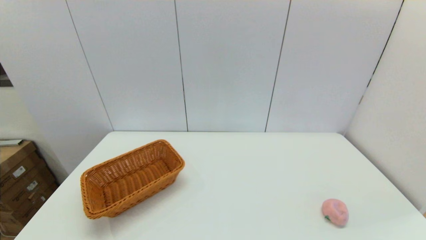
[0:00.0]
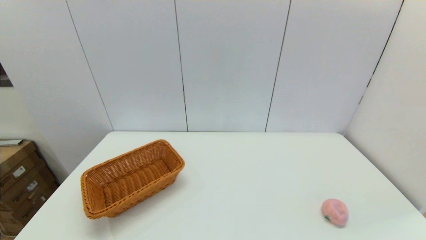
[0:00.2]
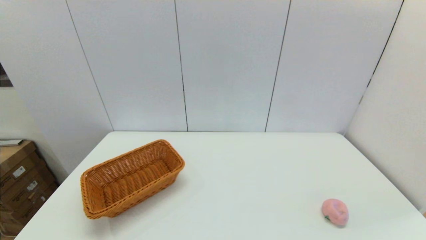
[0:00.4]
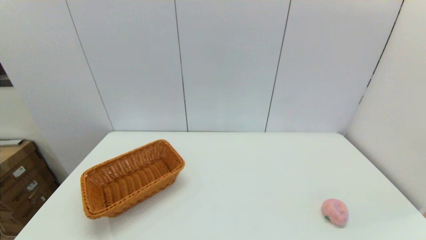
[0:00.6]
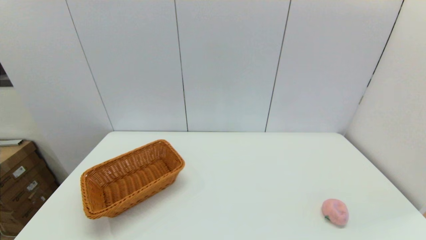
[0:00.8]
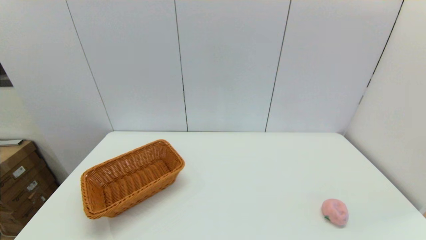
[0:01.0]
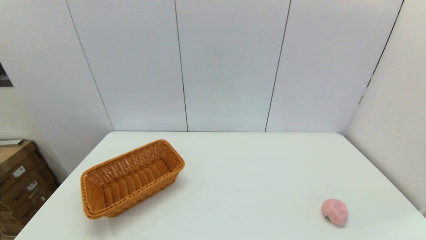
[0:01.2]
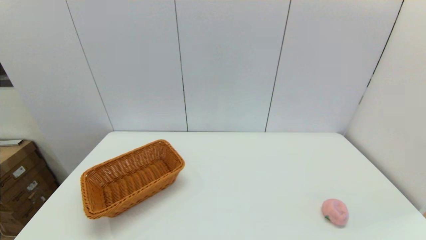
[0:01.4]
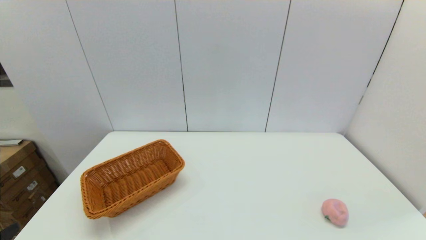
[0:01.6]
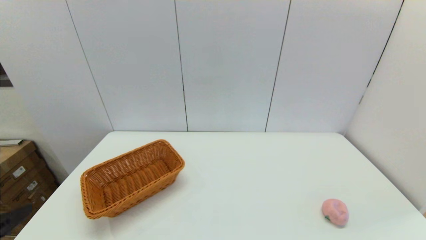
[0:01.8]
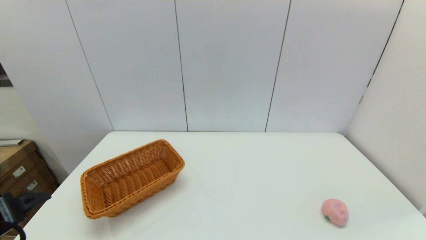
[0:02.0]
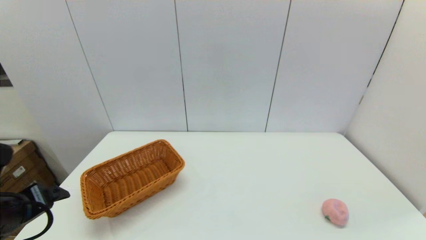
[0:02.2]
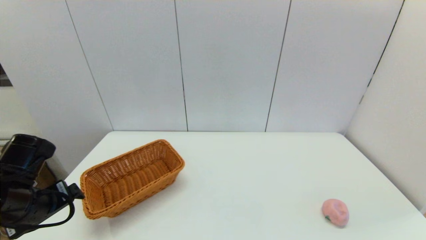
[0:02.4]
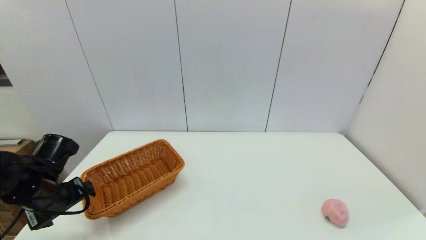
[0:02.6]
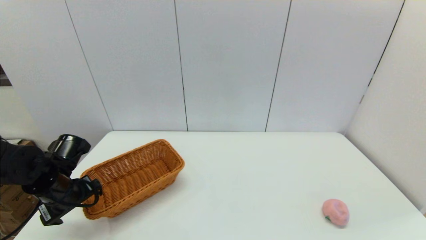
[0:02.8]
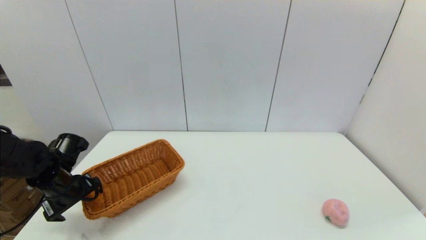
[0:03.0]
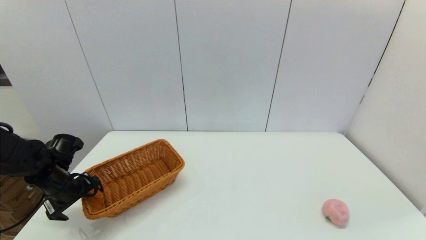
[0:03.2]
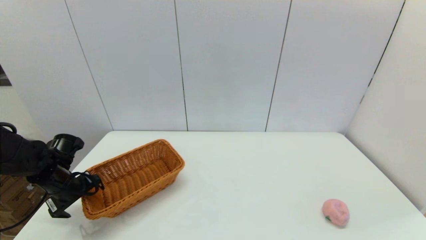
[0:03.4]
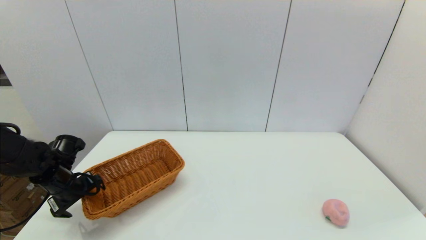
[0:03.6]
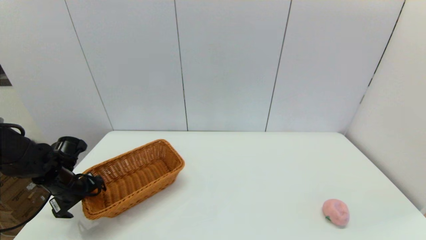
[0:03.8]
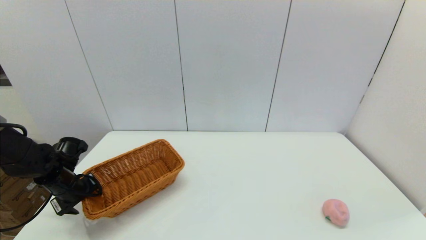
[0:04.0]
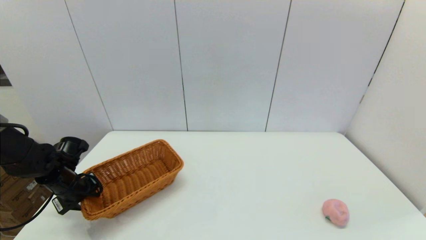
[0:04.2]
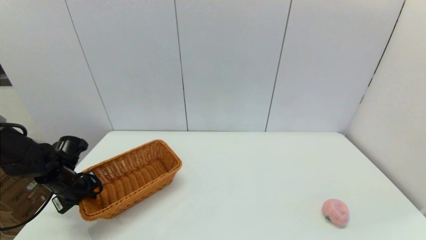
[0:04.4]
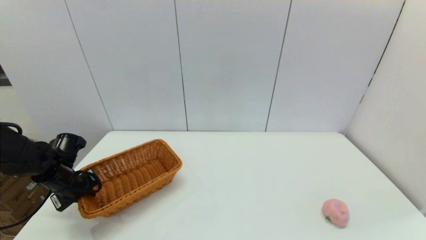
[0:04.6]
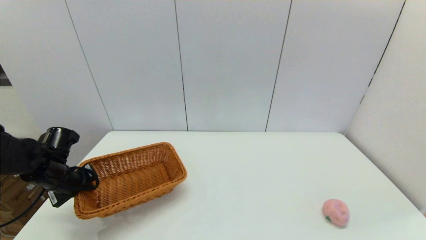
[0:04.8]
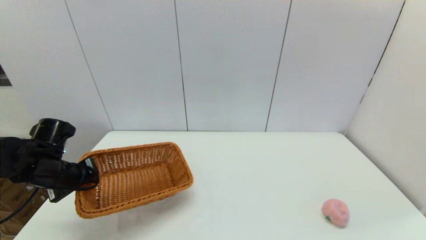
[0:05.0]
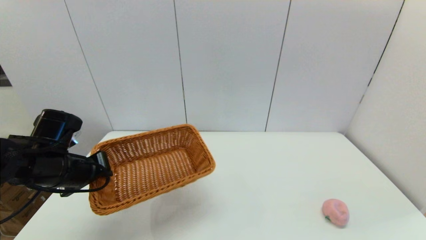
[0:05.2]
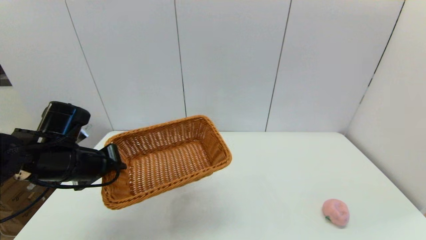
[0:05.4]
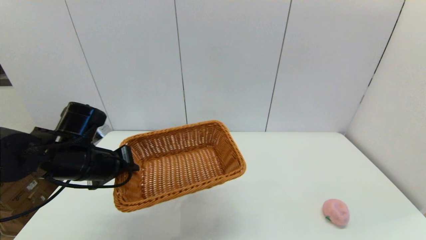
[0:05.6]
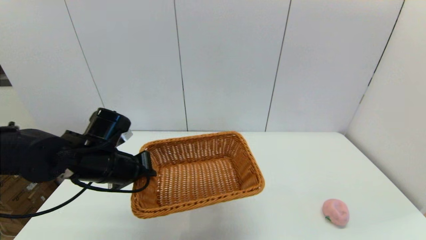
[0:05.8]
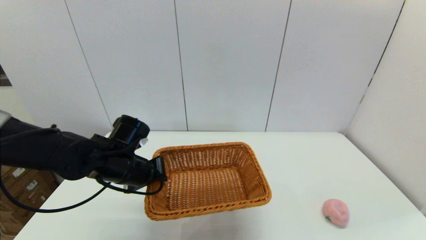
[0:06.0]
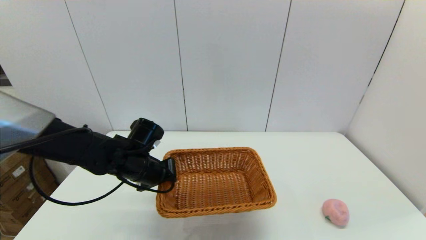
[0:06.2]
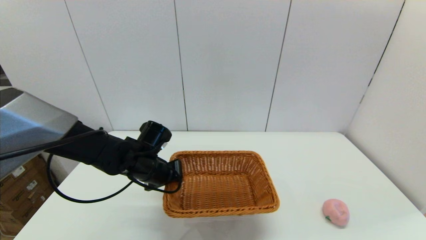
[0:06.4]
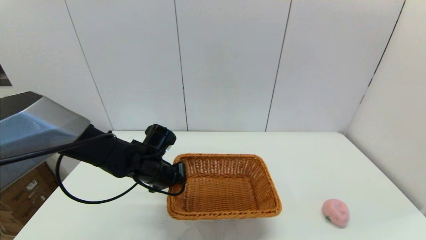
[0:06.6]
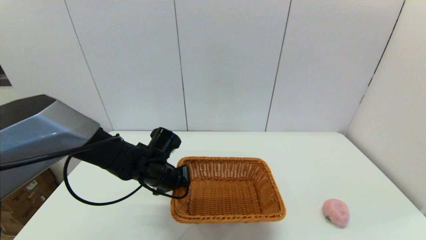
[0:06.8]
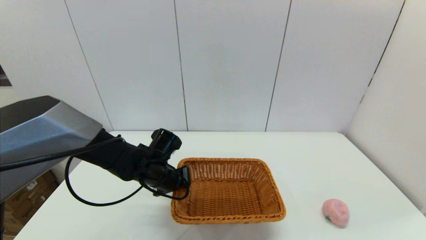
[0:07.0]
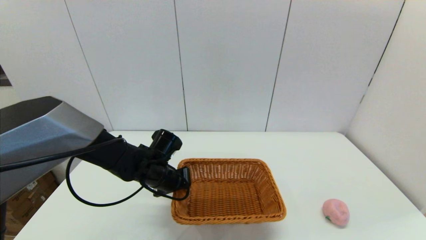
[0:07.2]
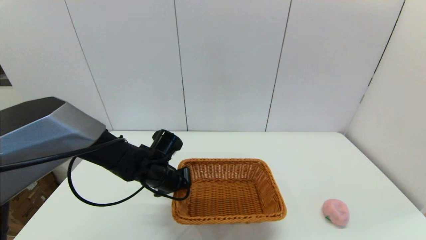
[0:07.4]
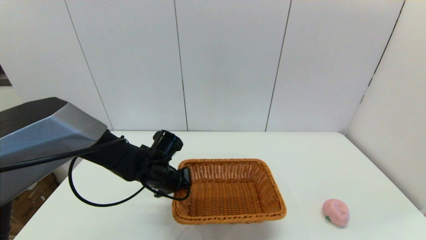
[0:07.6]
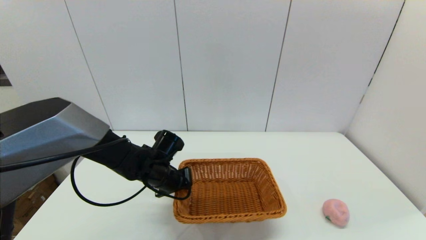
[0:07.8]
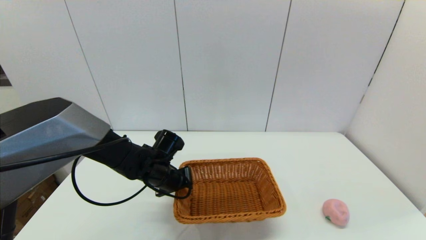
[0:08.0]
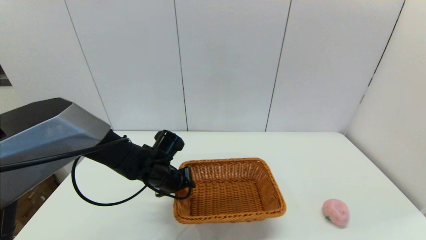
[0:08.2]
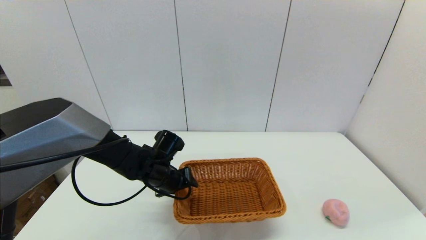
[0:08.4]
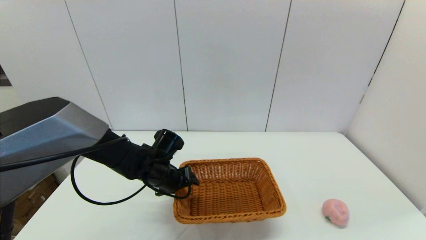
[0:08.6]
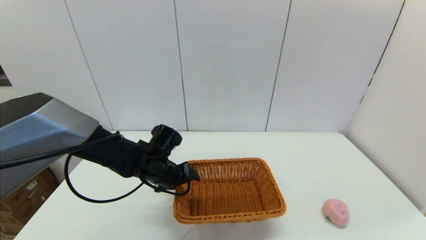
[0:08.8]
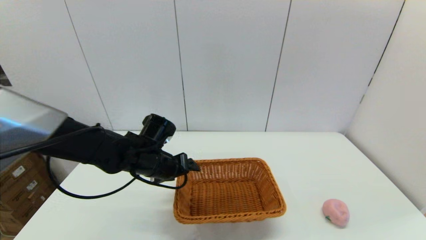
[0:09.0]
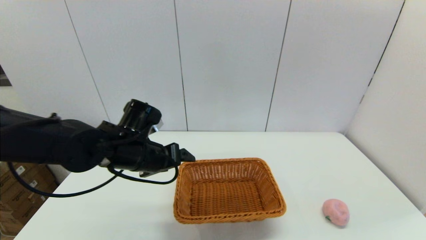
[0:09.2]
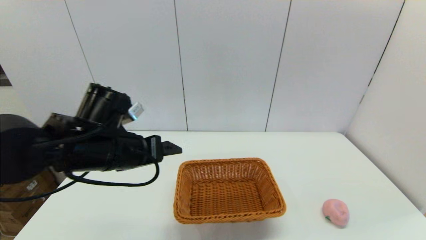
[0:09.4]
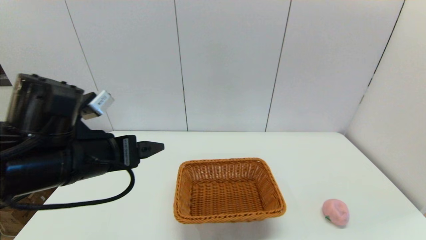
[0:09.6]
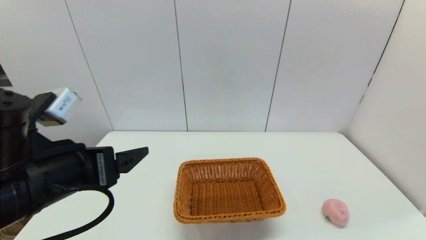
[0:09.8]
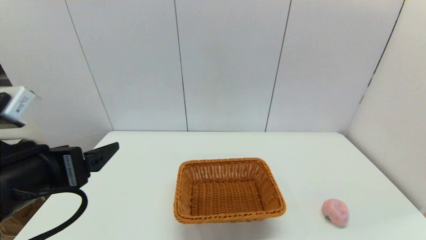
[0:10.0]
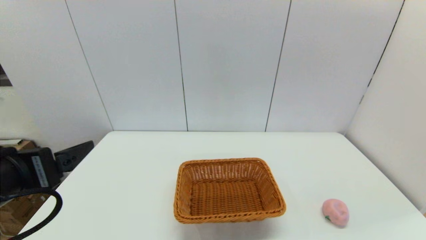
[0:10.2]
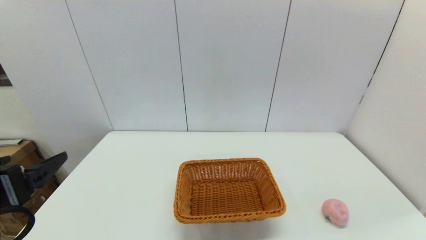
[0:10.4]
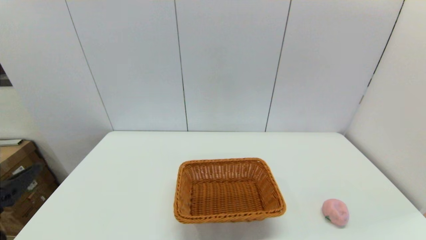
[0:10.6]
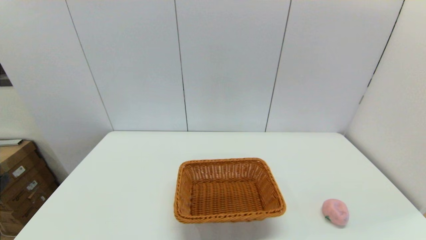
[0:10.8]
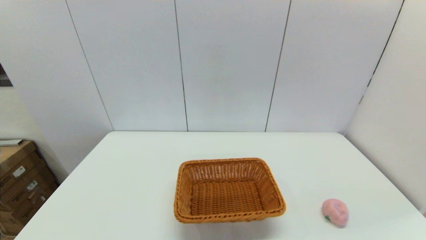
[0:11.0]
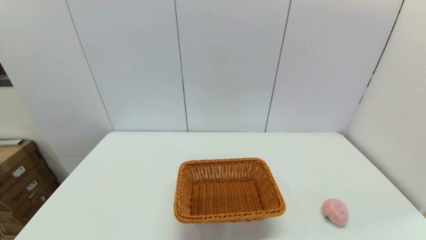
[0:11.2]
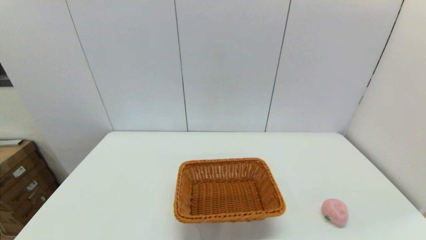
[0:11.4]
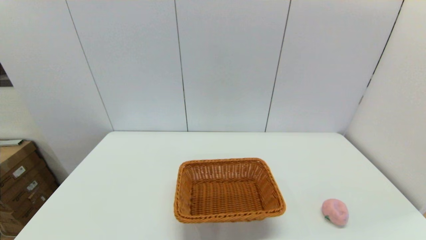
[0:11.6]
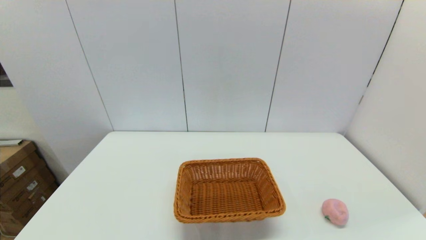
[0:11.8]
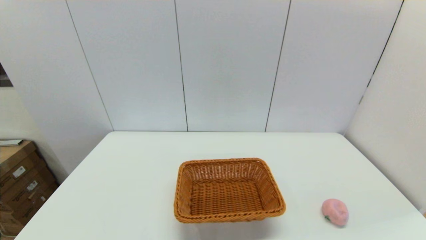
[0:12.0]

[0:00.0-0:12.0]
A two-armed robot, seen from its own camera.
Step, 0:00.0 to 0:04.4: Grasp the light basket with the left gripper.
Step, 0:04.6 to 0:08.4: Place the light basket on the middle of the table with the left gripper.
0:01.6 to 0:03.0: The left gripper travels forward by approximately 25 cm.
0:03.0 to 0:04.4: The left gripper closes its fingers.
0:04.4 to 0:06.0: The left gripper shifts roughly 20 cm to the right.
0:06.0 to 0:07.6: The left gripper moves downward, approximately 5 cm.
0:07.6 to 0:09.0: The left gripper goes approximately 5 cm upward, and opens.
0:09.0 to 0:10.4: The left gripper heads backward, to the left and upward, covering about 30 cm.
0:10.4 to 0:12.0: The left gripper is displaced backward and downward by about 15 cm.

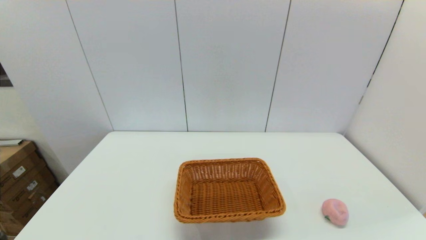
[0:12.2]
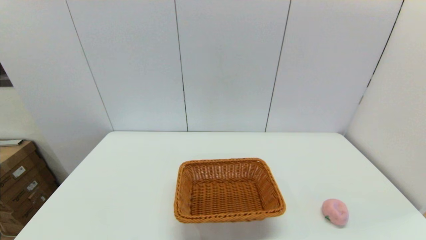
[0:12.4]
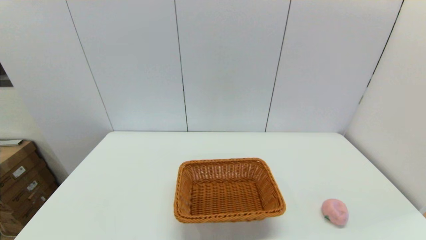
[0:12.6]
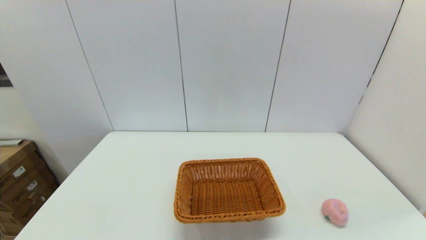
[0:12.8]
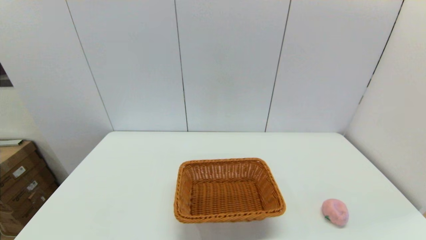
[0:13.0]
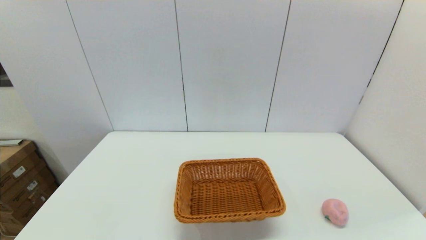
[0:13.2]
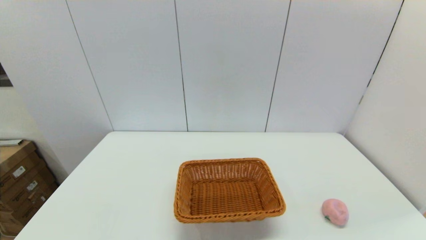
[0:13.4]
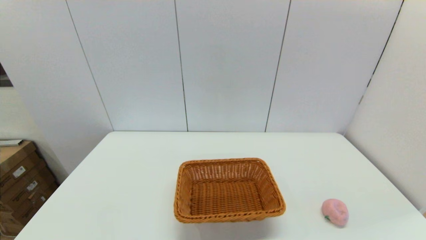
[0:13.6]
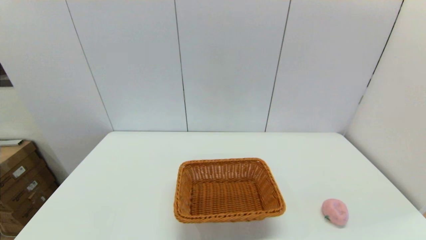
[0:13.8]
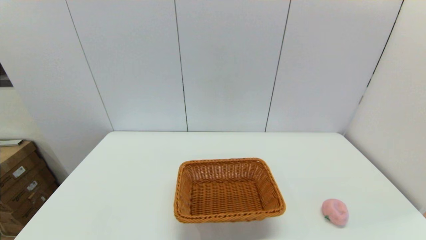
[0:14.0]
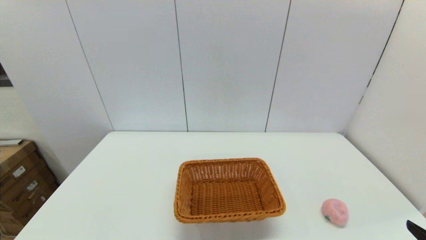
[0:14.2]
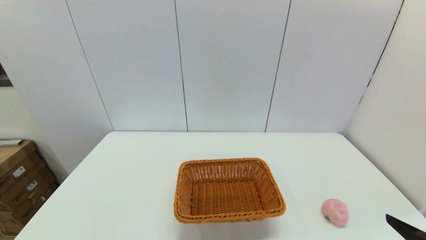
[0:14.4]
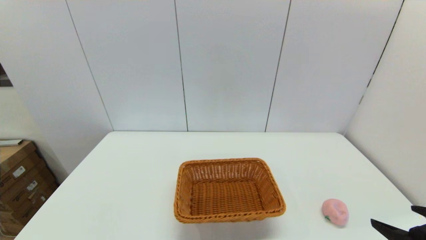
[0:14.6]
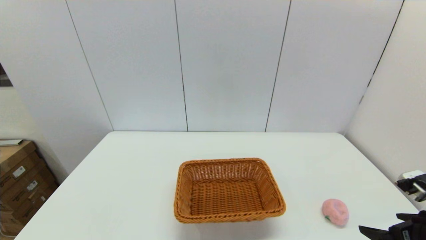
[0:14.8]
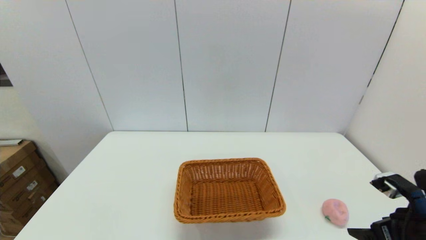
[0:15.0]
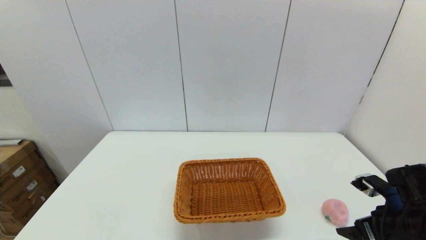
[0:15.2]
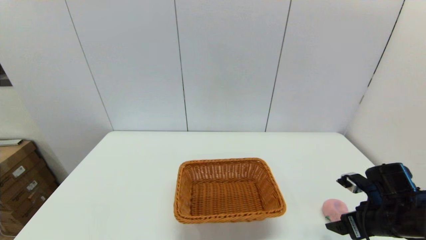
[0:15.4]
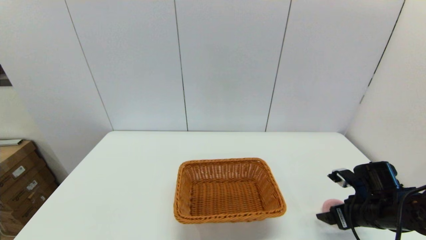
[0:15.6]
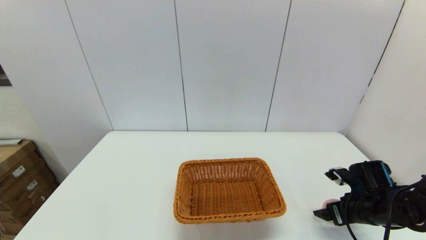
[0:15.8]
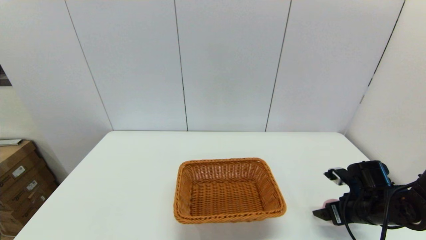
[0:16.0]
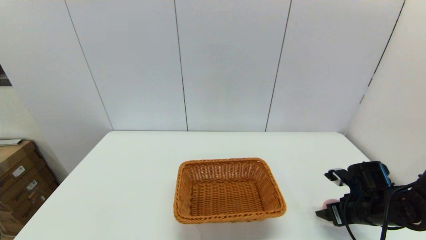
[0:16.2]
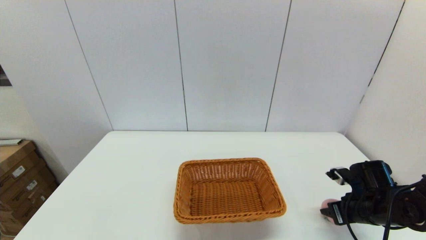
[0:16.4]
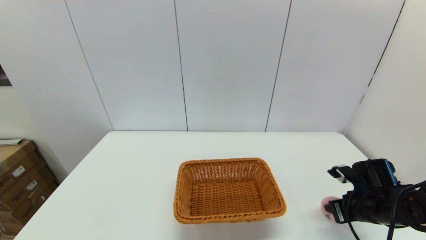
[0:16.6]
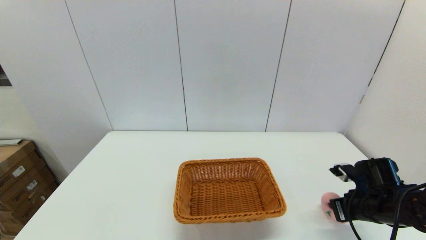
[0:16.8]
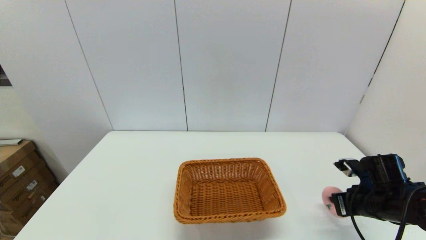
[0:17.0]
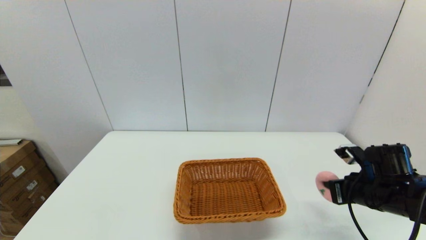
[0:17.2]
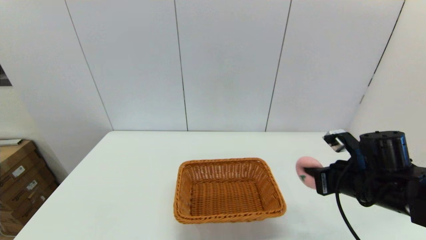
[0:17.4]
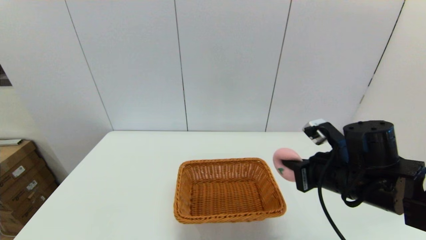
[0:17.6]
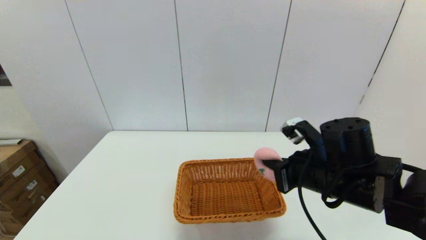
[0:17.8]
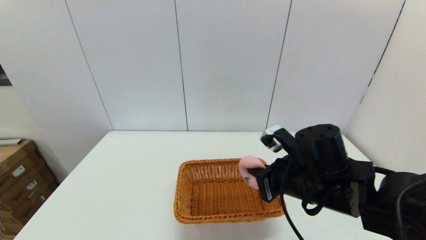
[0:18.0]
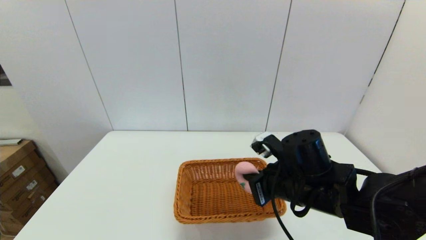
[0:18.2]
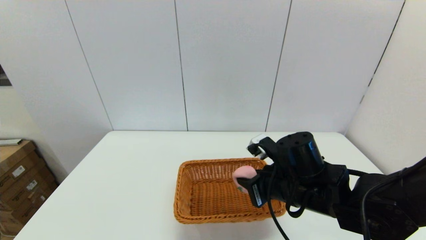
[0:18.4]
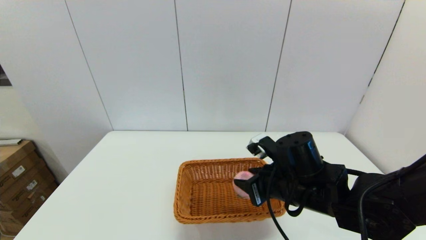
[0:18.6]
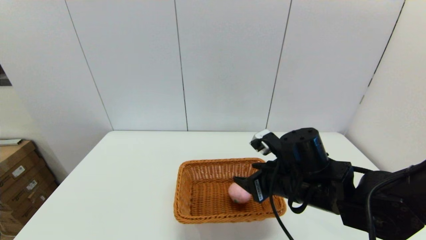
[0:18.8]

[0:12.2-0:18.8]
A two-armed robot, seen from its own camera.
Step, 0:12.2 to 0:16.8: Grasp the peach with the right gripper.
Step, 0:17.0 to 0:18.8: Place the peach into the light basket with the right gripper.
0:13.8 to 0:15.4: The right gripper heads forward, covering about 25 cm.
0:15.4 to 0:17.2: The right gripper closes its fingers.
0:17.2 to 0:18.8: The right gripper goes some 15 cm to the left, and opens up.
